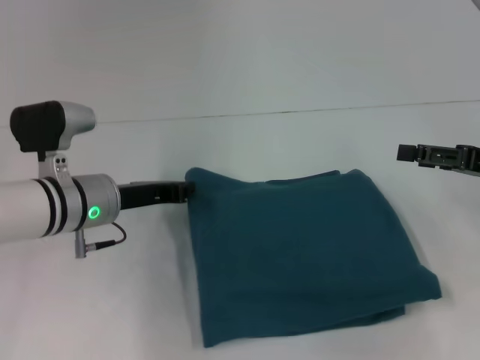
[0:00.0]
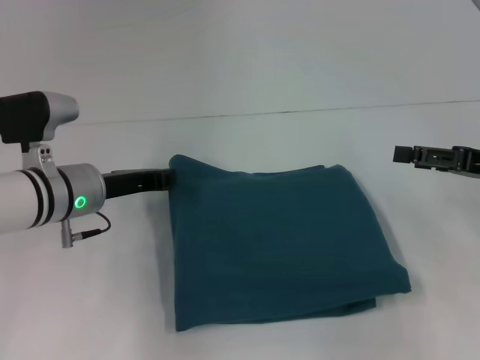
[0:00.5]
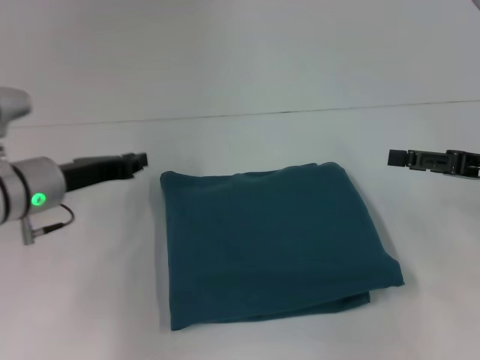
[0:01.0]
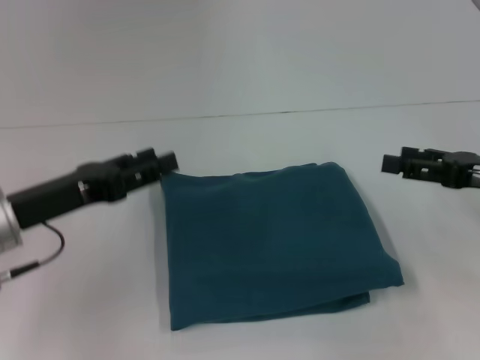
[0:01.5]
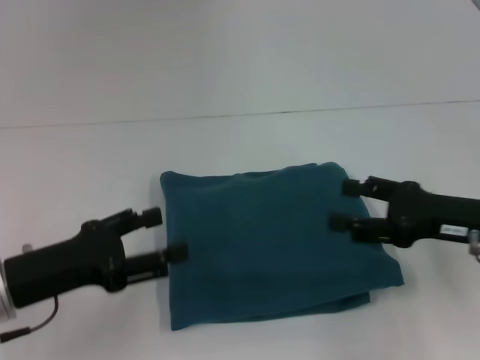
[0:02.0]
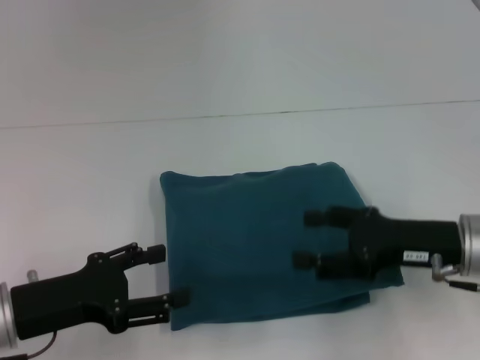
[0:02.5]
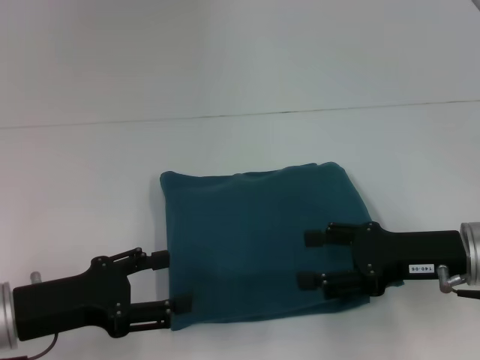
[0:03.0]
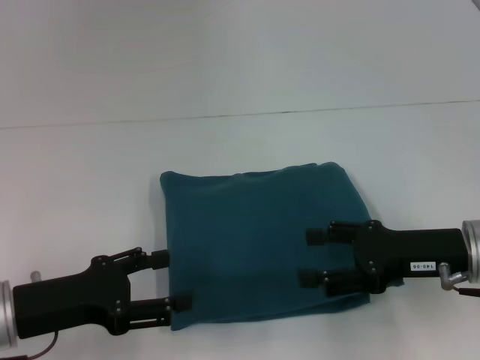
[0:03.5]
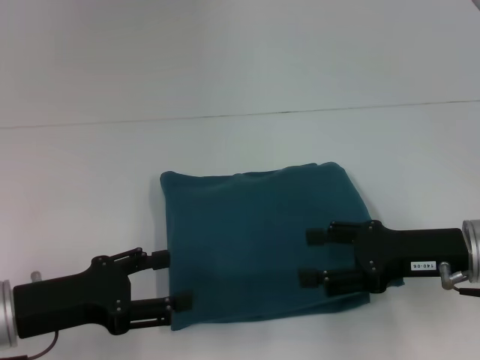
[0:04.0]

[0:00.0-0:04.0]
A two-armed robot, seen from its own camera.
0:00.0 to 0:02.0: The left gripper shifts approximately 15 cm backward and to the left, and opens; the right gripper is displaced to the left by some 5 cm.
0:02.0 to 0:04.0: The grippers make only small movements.

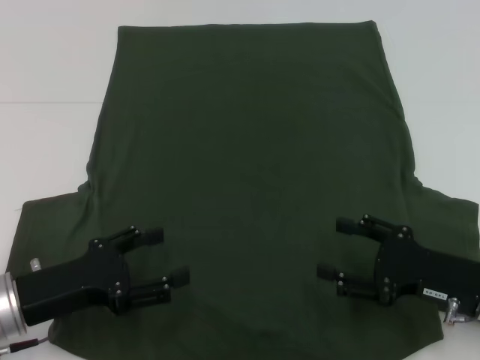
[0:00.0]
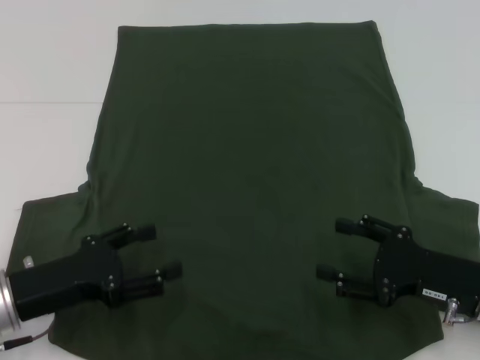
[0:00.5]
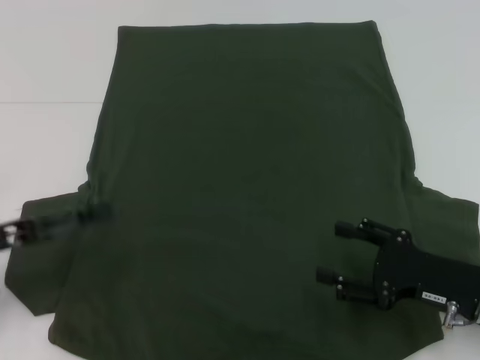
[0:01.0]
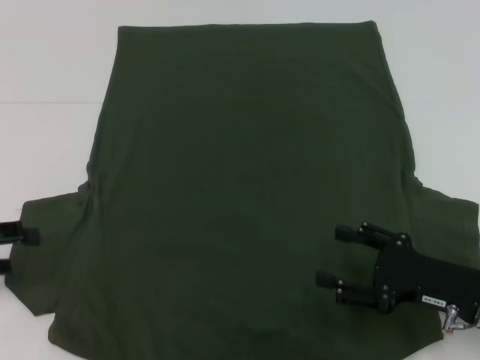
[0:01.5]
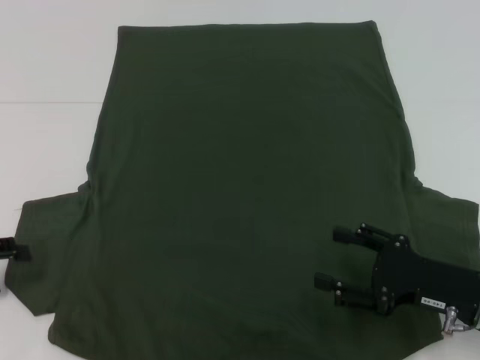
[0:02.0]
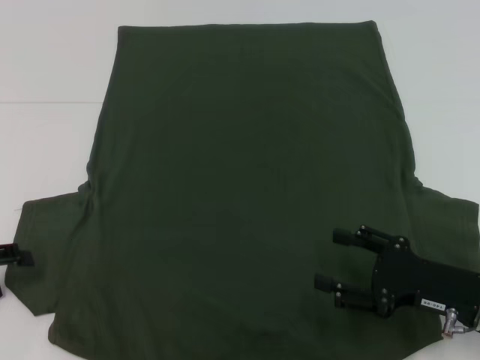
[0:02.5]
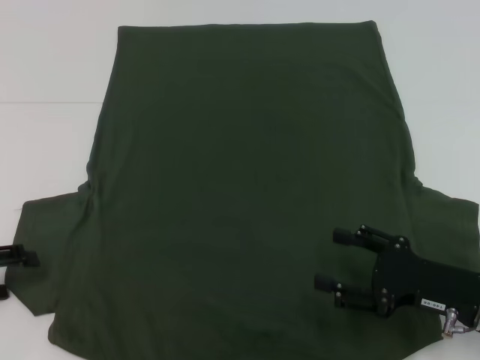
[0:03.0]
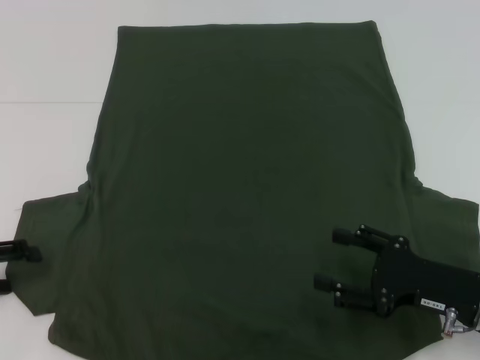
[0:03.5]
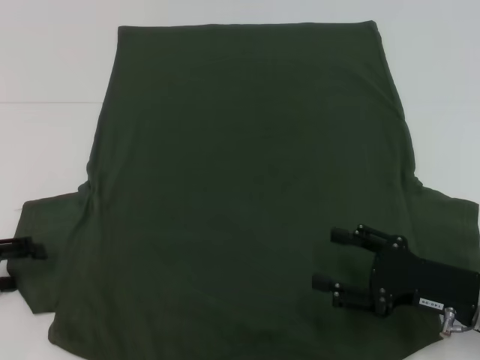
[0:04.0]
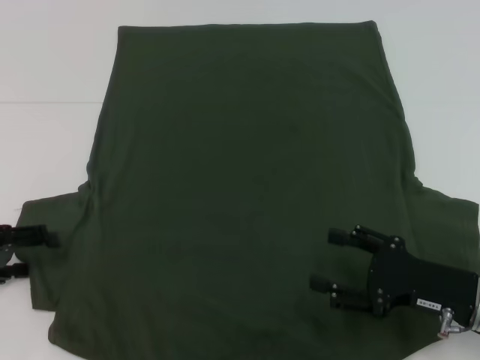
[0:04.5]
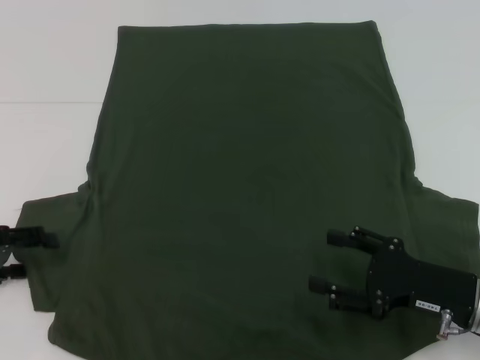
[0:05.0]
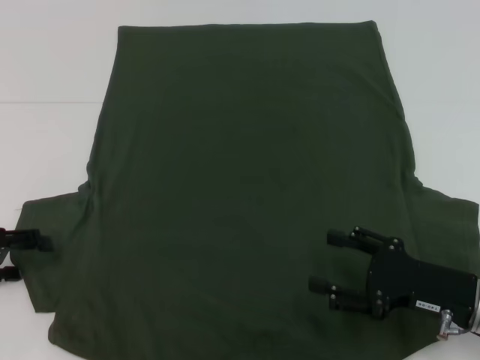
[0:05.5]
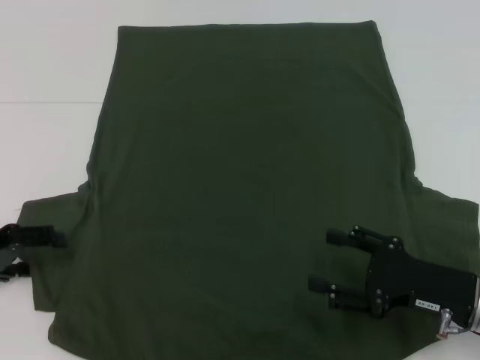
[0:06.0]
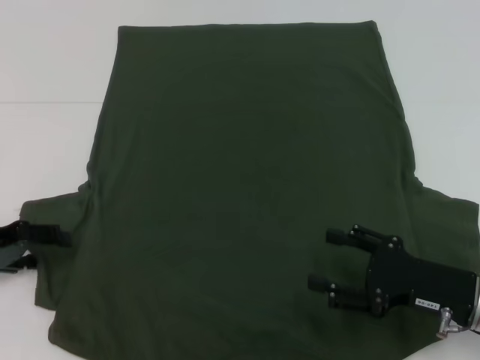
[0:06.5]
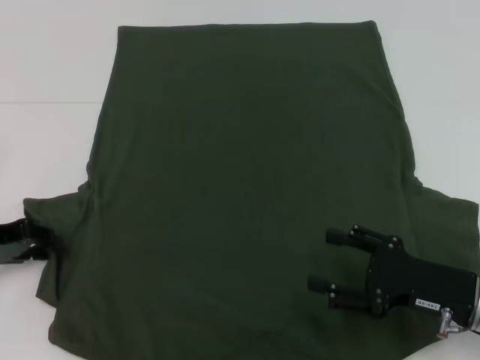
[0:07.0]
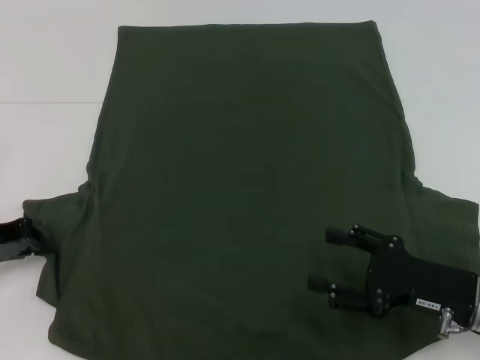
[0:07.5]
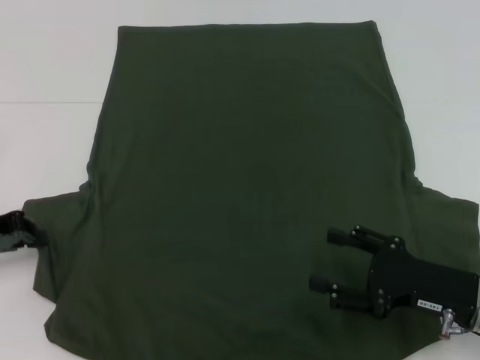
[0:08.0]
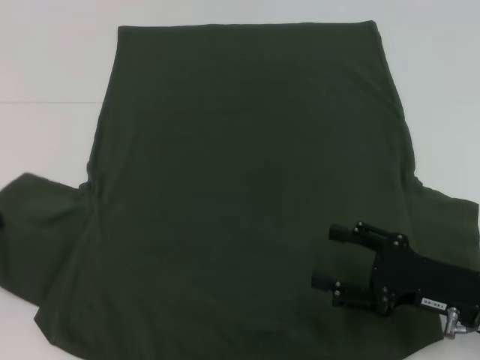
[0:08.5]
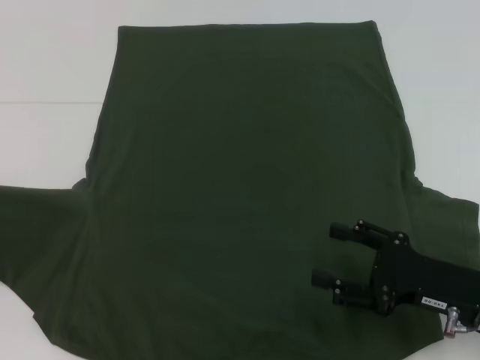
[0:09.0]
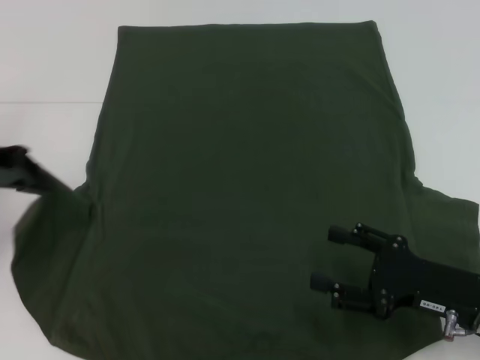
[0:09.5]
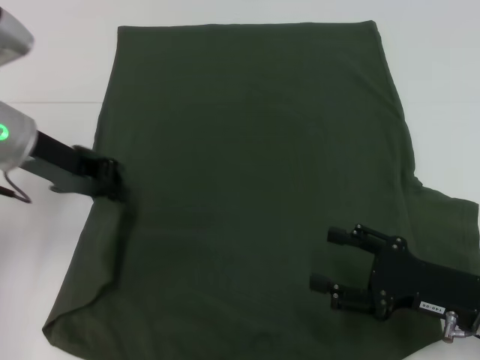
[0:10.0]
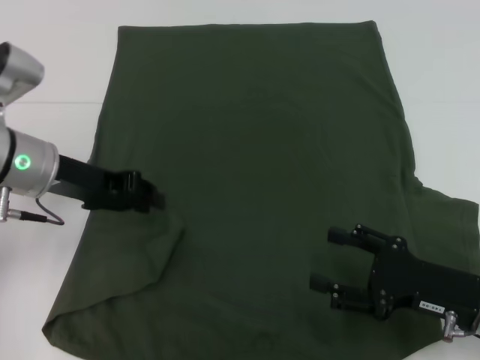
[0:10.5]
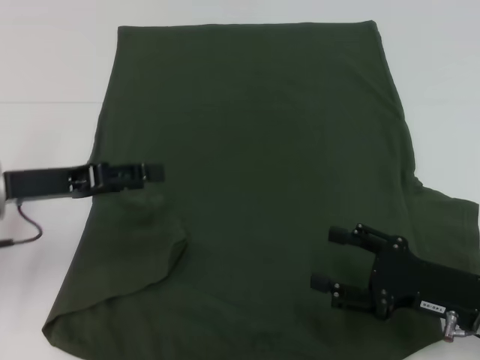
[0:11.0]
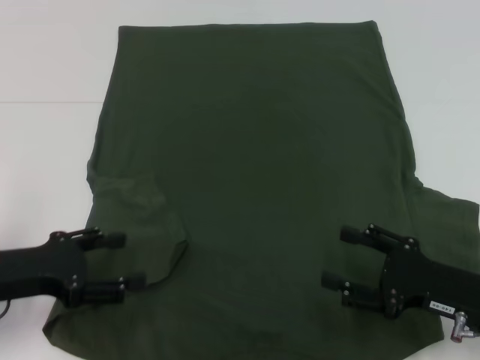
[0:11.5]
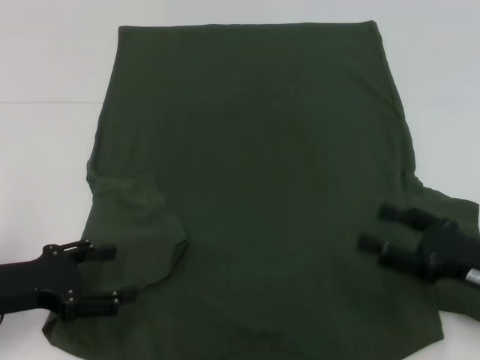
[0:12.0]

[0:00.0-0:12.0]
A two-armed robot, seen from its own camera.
Step, 0:00.0 to 0:10.5: Fold the bottom left sleeve with your left hand.
0:00.0 to 0:02.0: The left gripper moves to the left, roughly 15 cm.
0:04.0 to 0:06.0: The grippers make only small movements.
0:06.0 to 0:08.0: The left gripper closes its fingers.
0:08.0 to 0:10.0: The left gripper moves to the right, upward and forward, about 15 cm.
0:10.0 to 0:12.0: The left gripper heads backward, downward and to the left, covering some 20 cm, and opens its fingers.

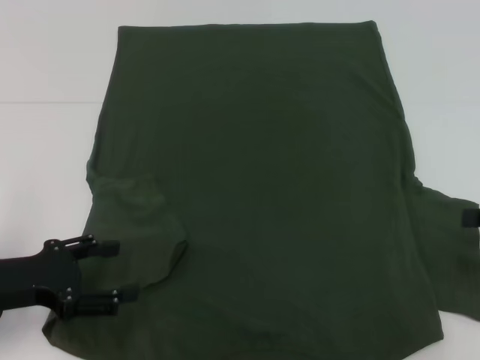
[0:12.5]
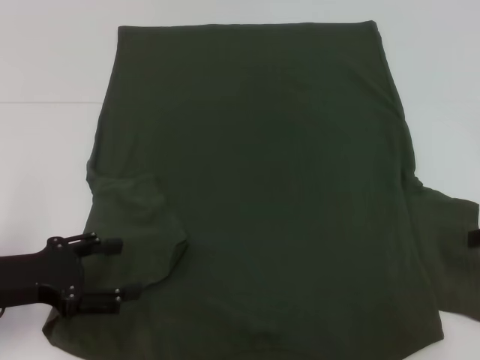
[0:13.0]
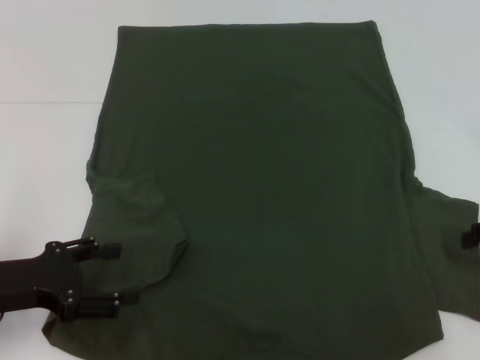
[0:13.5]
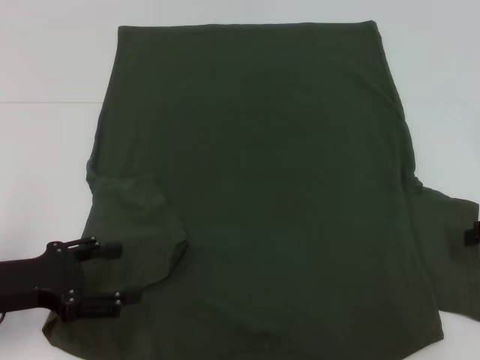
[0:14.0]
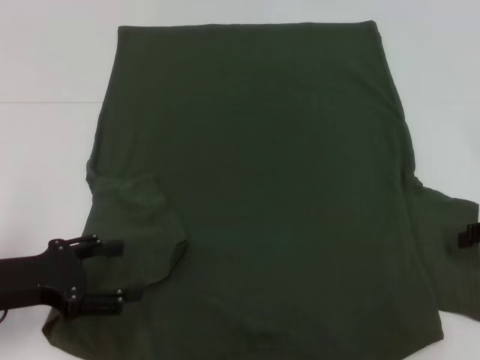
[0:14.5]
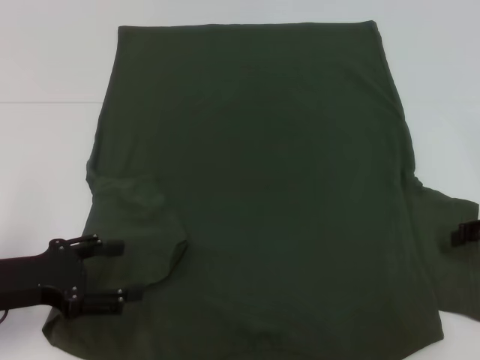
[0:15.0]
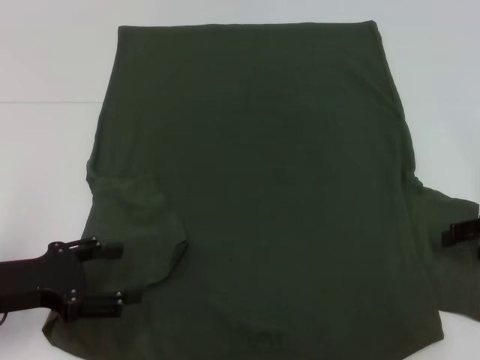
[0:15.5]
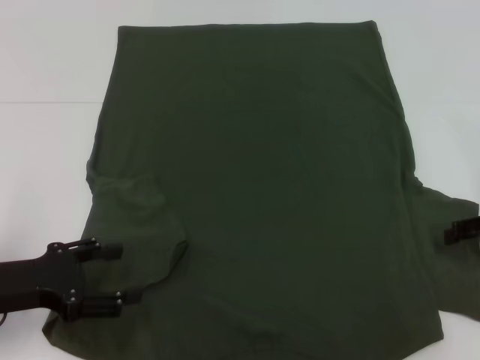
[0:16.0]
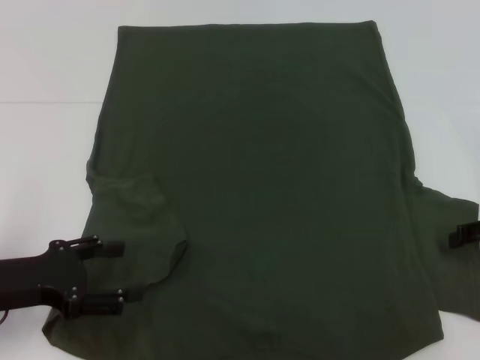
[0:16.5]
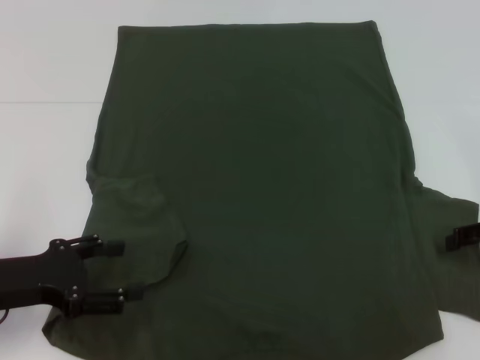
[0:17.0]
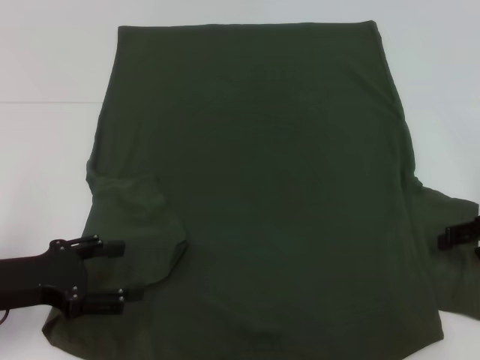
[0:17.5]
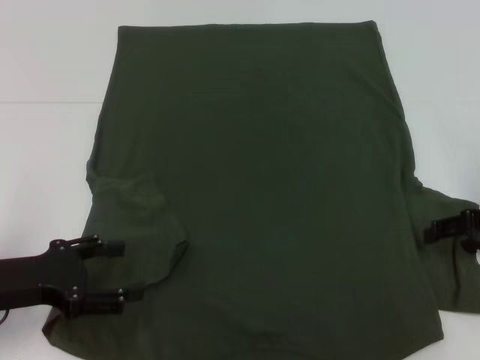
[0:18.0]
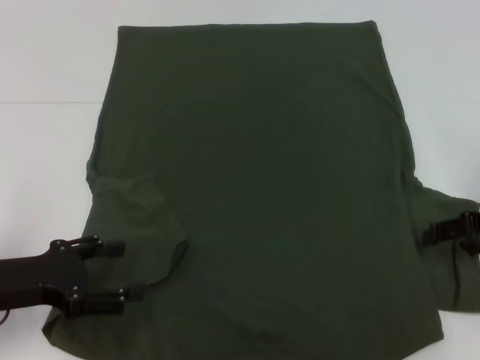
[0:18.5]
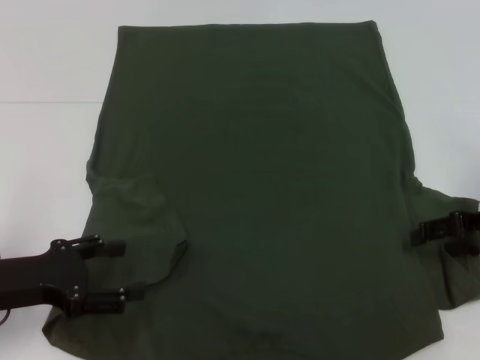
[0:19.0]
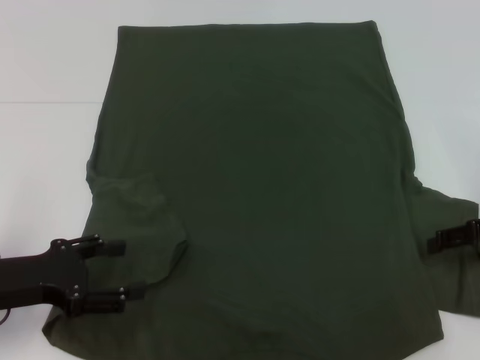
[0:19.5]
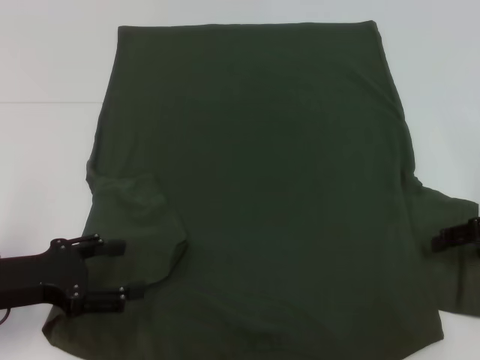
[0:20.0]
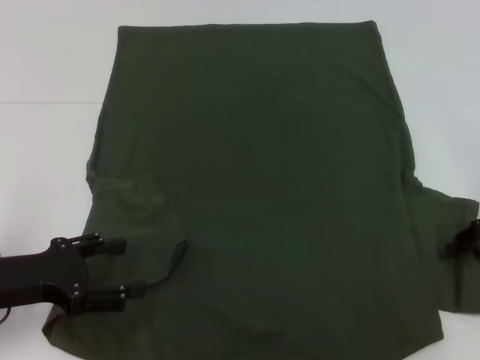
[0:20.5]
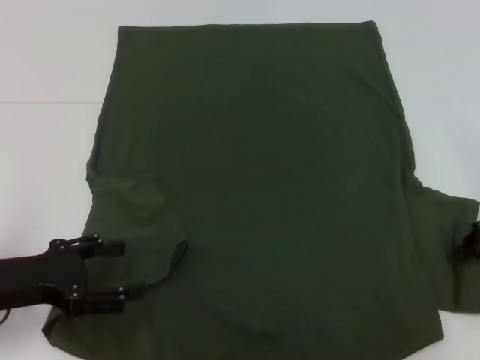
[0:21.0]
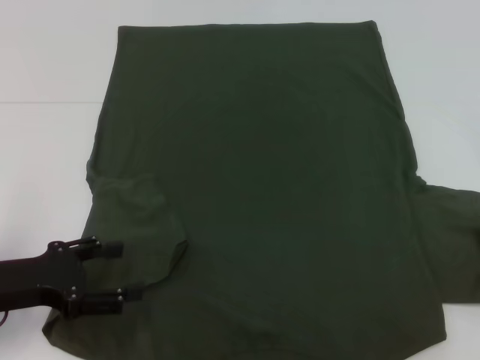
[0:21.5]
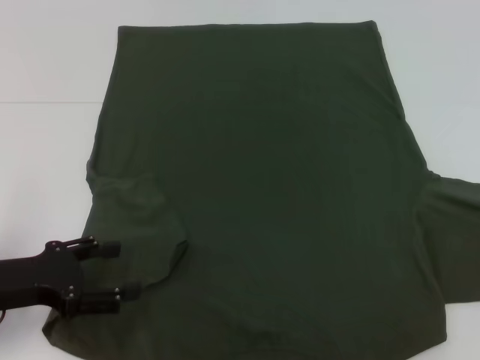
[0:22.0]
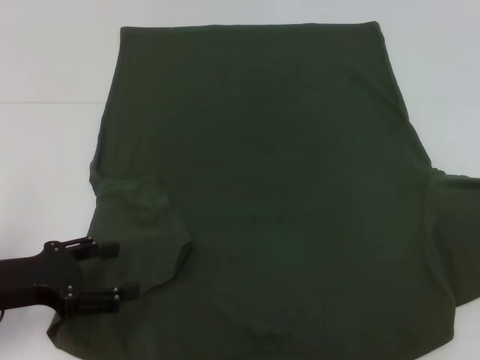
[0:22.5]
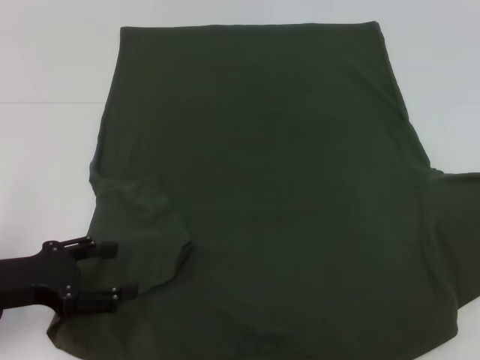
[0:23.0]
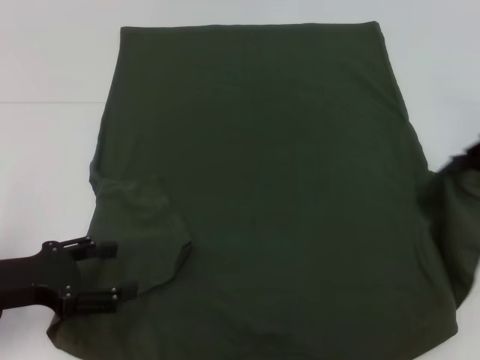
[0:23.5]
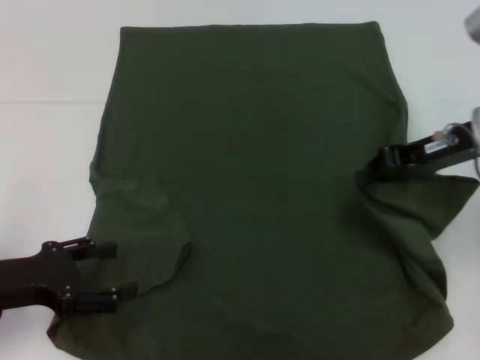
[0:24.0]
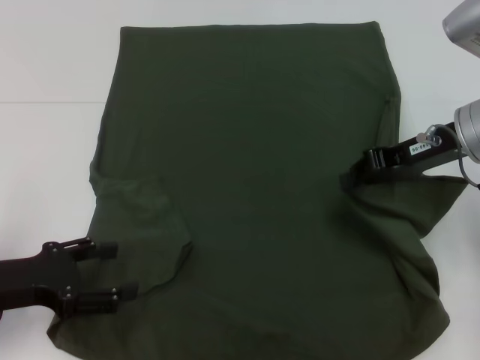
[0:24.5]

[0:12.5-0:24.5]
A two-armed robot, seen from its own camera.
0:20.5 to 0:22.5: The right gripper moves to the right and upward, some 10 cm, and closes its fingers.
0:22.5 to 0:24.5: The right gripper heads to the left, covering some 20 cm.
